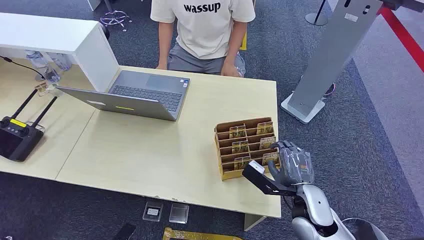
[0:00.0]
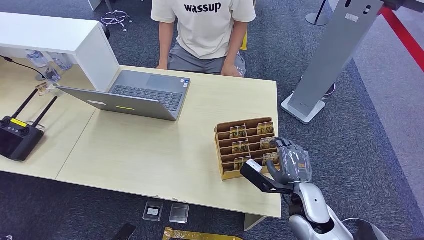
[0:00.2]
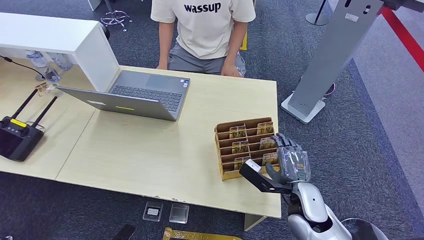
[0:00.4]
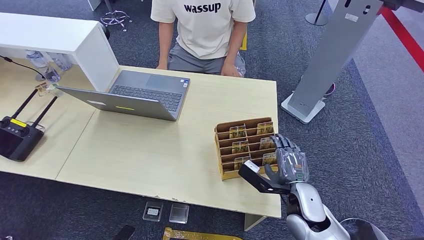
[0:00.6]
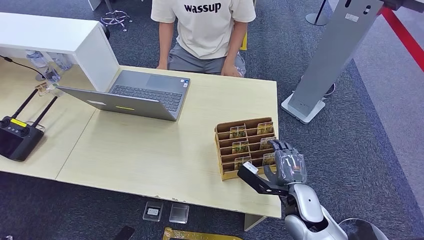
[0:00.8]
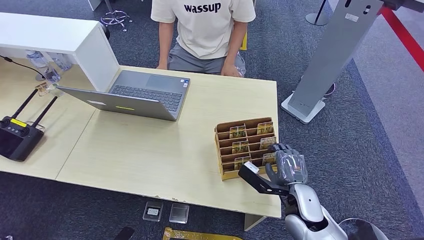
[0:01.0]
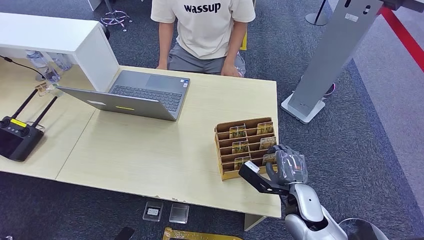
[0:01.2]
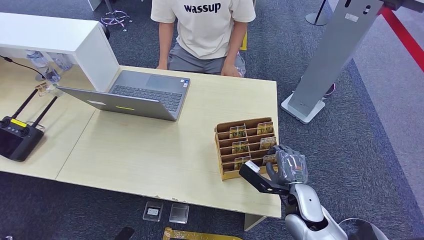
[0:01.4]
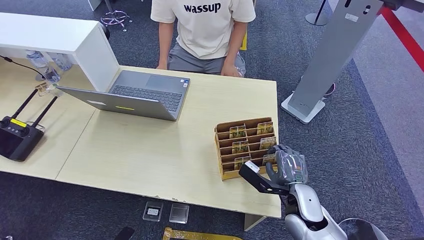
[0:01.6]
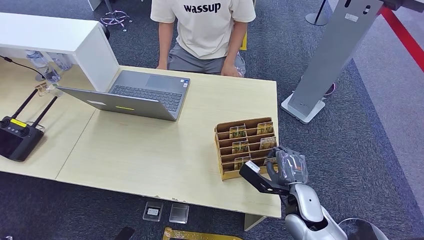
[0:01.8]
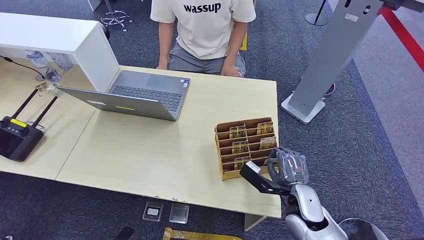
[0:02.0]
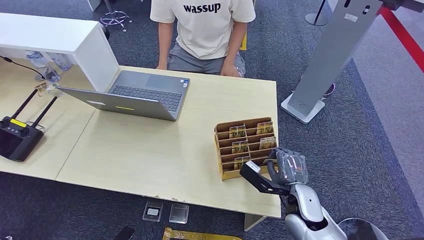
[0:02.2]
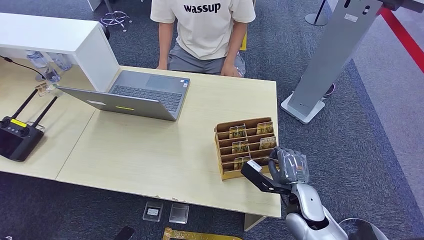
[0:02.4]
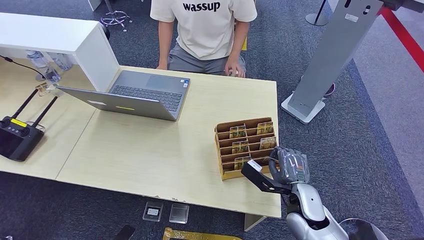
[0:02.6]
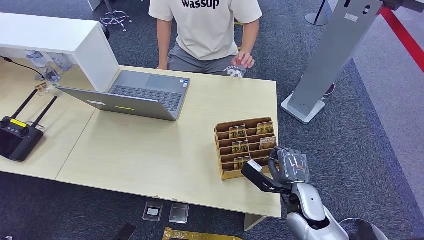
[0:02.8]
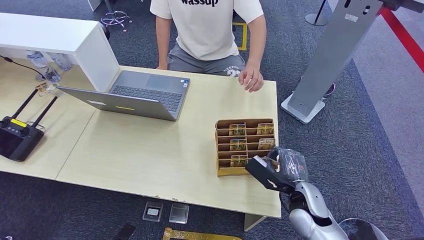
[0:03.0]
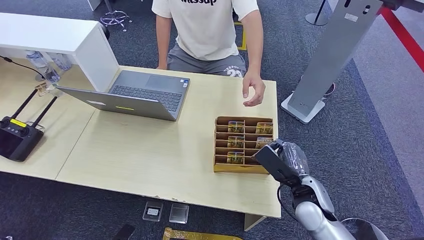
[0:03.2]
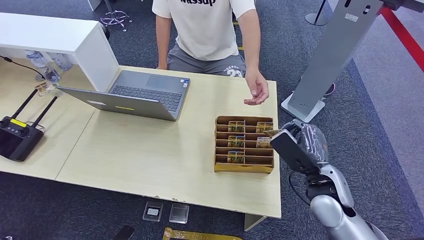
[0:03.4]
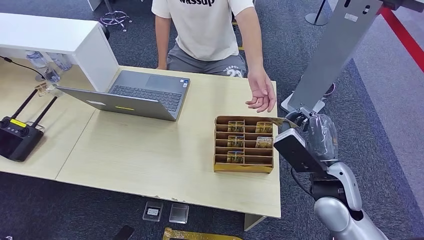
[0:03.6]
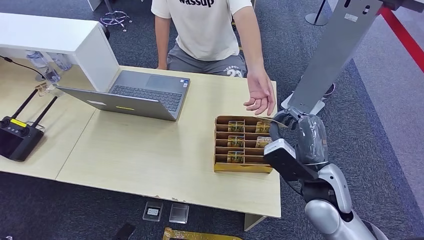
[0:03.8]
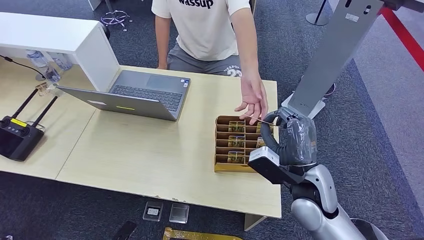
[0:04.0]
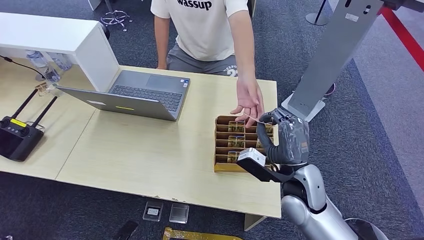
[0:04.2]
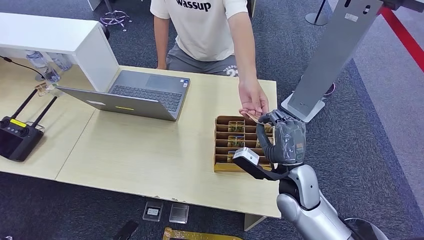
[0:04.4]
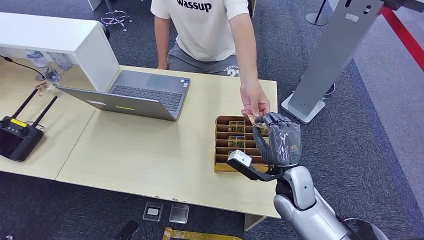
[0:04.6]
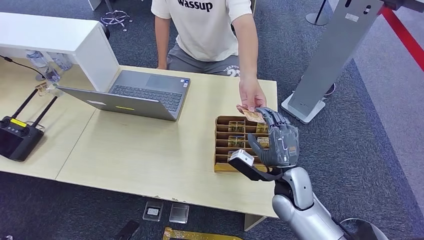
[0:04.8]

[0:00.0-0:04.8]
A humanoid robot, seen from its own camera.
Step, 0:00.0 to 0:03.2: Pick up the key card from the card box.
Step, 0:03.6 to 0:04.8: Hand the key card to the target.
0:03.2 to 0:04.8: The right hand moves to the left, roughly 5 cm, and reaches roughly 10 cm upward, then returns.
